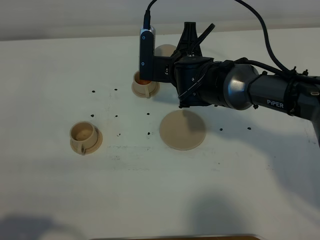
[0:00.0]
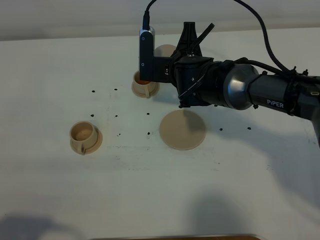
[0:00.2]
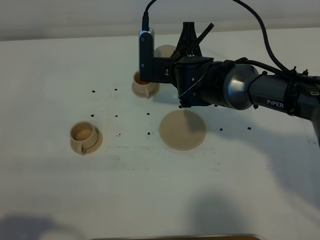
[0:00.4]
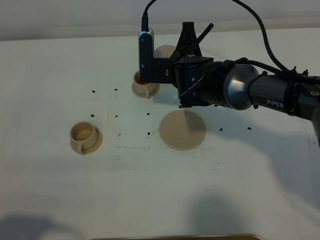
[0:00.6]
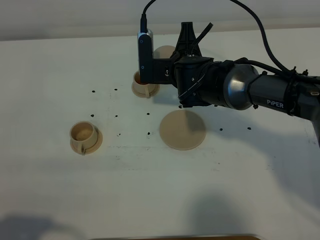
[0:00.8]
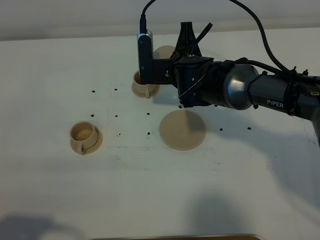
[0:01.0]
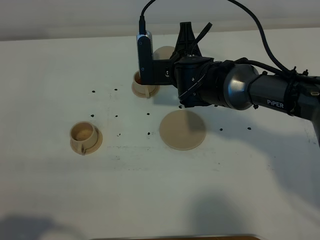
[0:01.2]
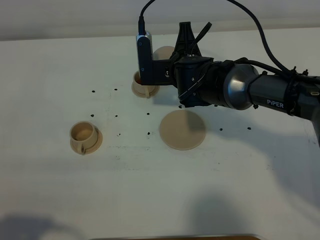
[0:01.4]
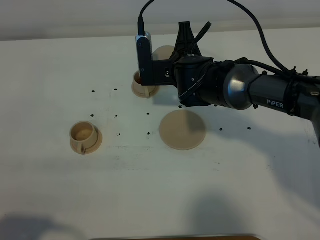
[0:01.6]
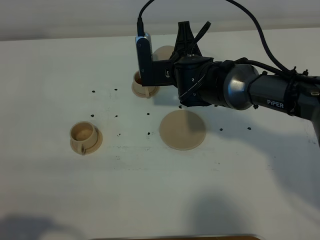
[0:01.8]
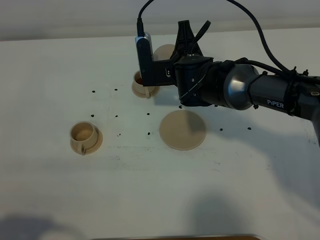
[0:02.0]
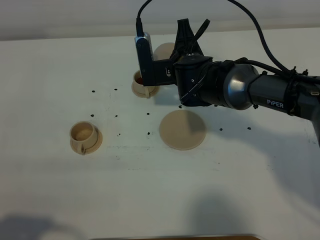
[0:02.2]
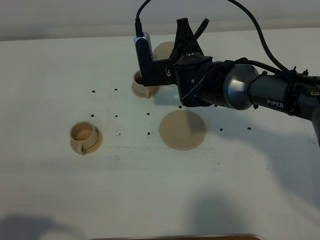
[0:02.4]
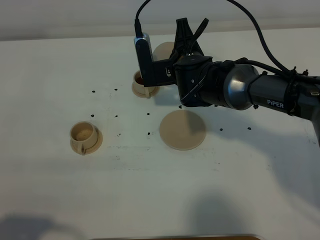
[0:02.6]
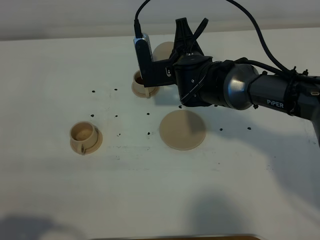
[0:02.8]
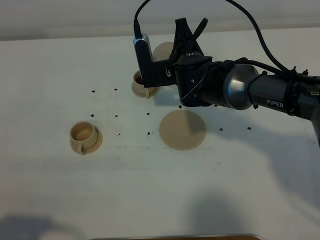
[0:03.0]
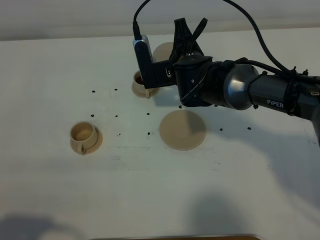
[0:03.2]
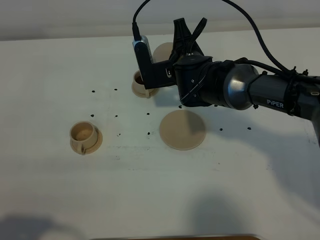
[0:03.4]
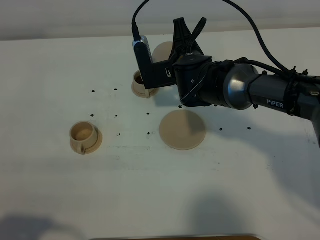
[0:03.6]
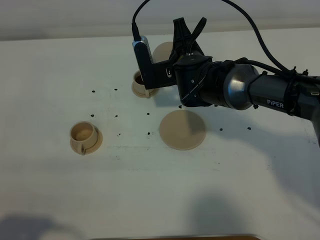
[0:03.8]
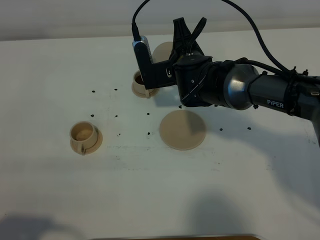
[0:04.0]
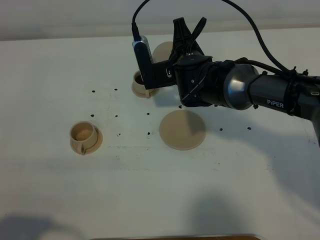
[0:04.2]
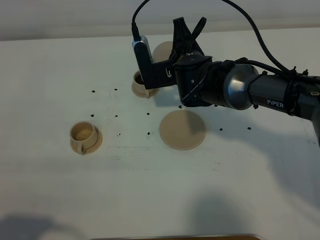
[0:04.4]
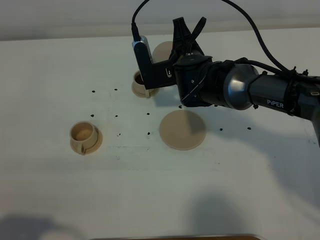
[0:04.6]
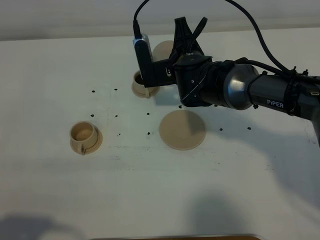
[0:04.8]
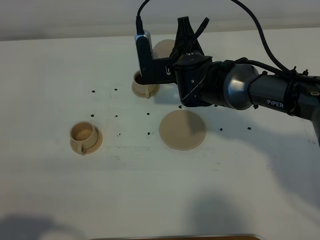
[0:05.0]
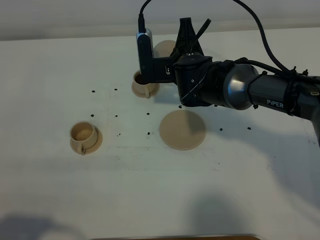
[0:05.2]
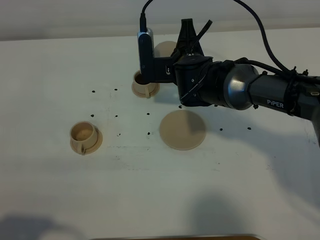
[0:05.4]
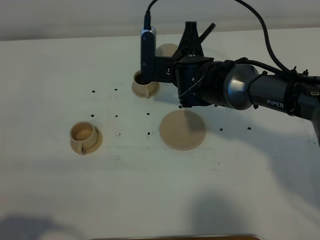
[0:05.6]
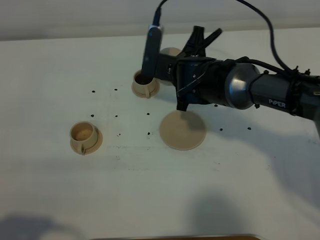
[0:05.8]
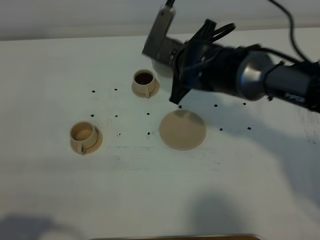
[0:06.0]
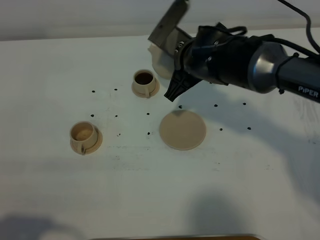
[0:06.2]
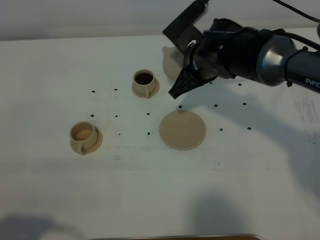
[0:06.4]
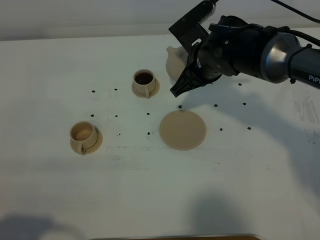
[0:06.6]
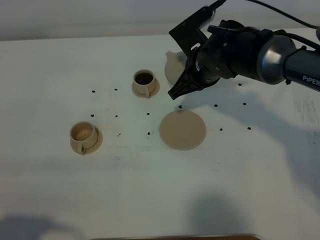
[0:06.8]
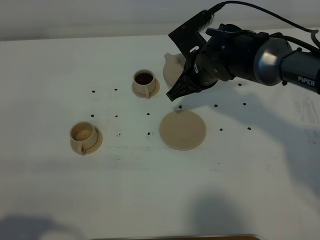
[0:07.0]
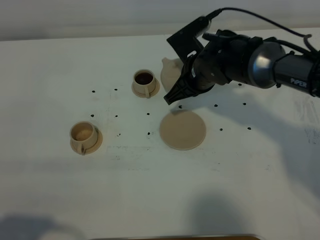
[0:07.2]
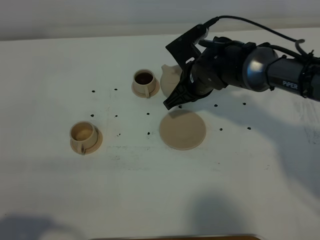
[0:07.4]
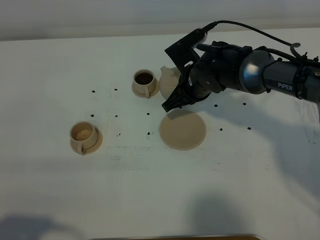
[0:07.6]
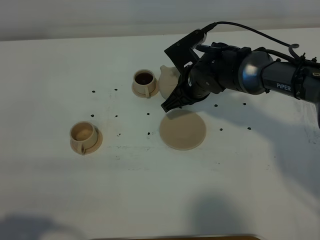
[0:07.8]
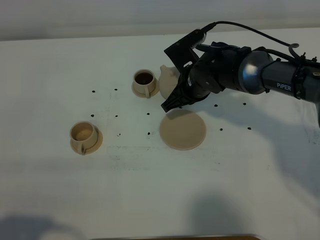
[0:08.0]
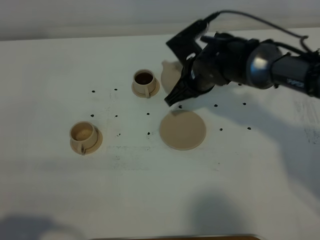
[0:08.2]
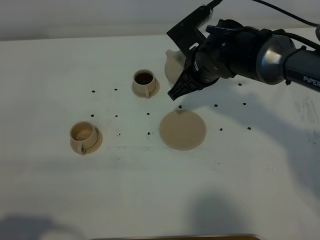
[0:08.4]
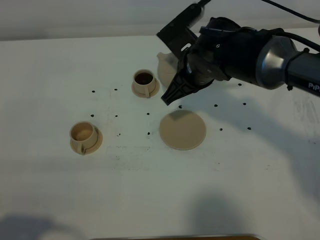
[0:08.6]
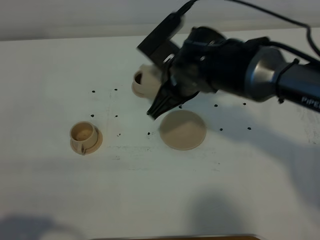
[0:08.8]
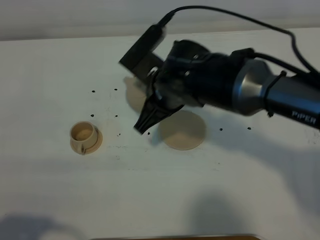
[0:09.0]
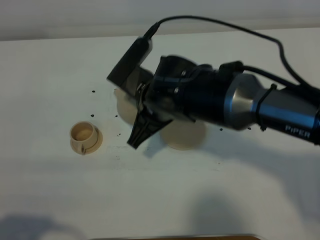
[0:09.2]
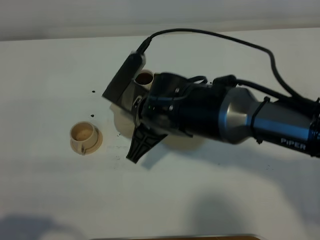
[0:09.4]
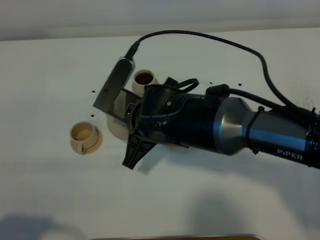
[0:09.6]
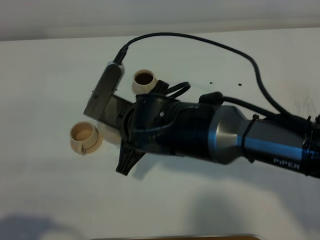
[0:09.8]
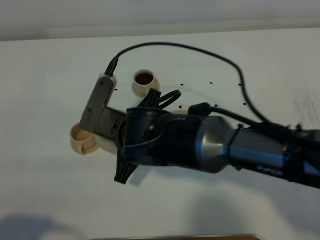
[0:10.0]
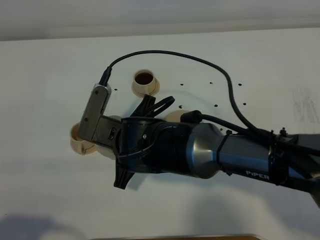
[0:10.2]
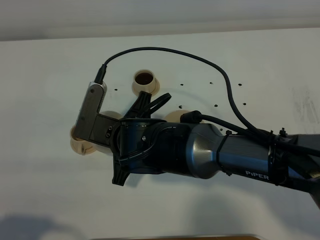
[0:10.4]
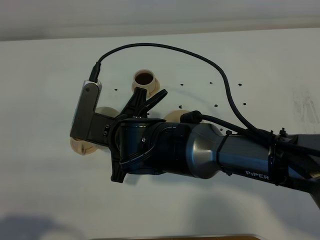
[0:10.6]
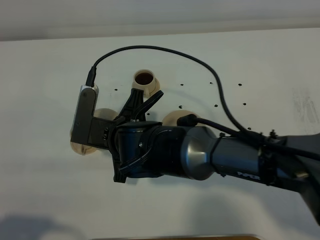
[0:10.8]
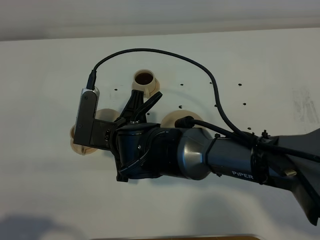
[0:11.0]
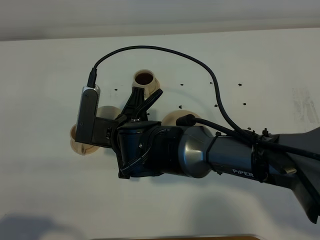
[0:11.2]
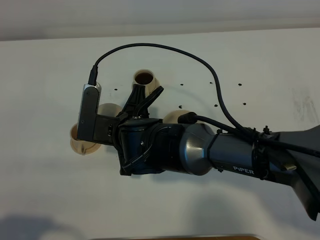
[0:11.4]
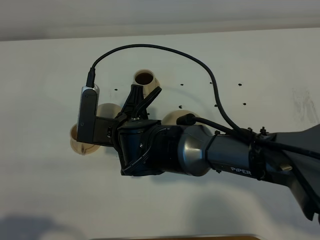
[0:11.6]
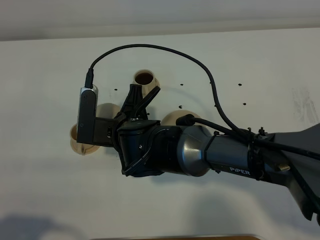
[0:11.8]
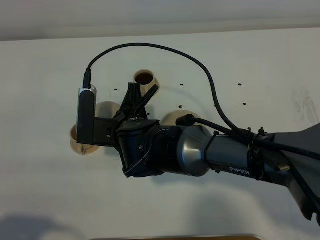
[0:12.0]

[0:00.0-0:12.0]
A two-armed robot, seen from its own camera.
Task of the whole recording: grasp the brown teapot and pour the tea into the two brown teacups one by one, put the brown teapot back in its original place.
0:00.0 to 0:03.0: The grippers stay close to where they were, moving slightly.
0:03.0 to 0:04.4: Both grippers stay about where they are.
0:06.0 to 0:07.6: The right gripper heads downward, covering some 5 cm.
0:07.6 to 0:09.0: The right gripper shifts about 15 cm backward, upward and to the left.
0:09.0 to 0:10.4: The right gripper is displaced to the left and backward by roughly 10 cm.
0:10.4 to 0:12.0: The grippers move only a little.

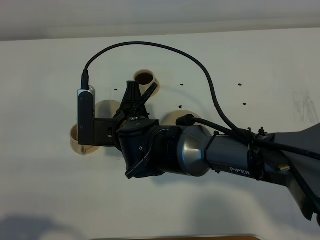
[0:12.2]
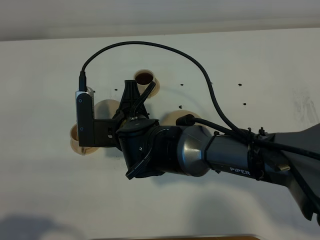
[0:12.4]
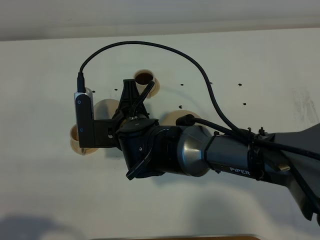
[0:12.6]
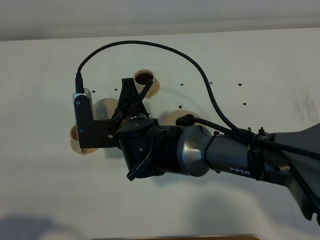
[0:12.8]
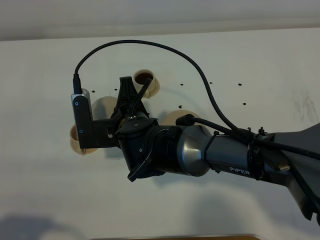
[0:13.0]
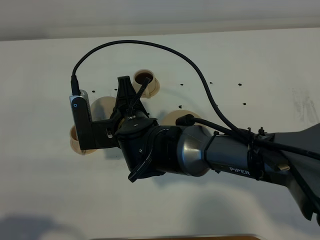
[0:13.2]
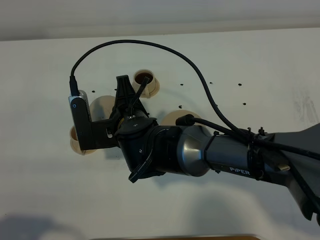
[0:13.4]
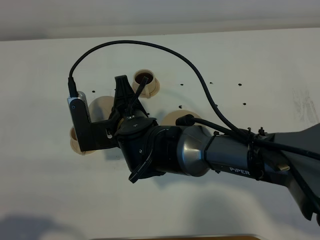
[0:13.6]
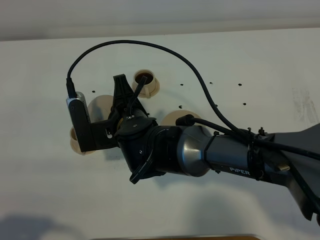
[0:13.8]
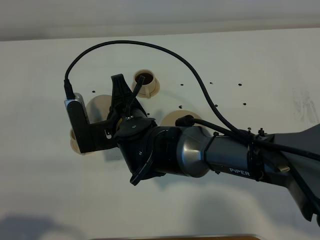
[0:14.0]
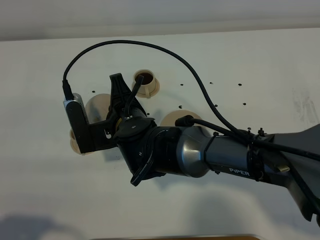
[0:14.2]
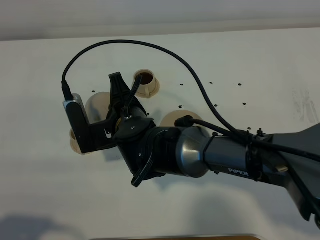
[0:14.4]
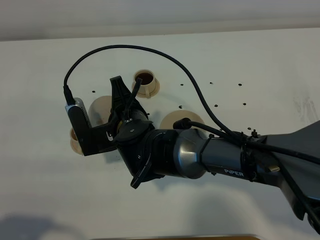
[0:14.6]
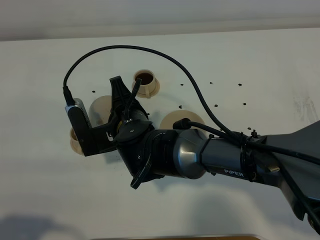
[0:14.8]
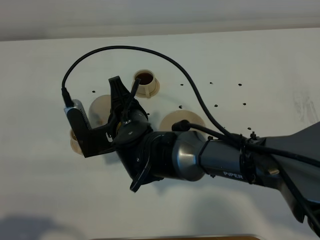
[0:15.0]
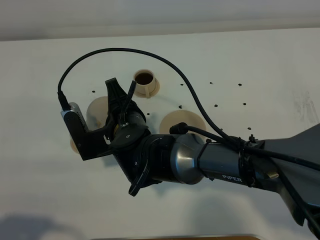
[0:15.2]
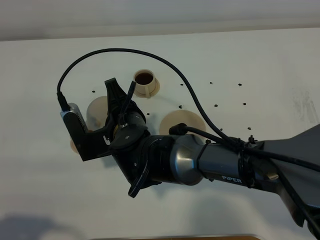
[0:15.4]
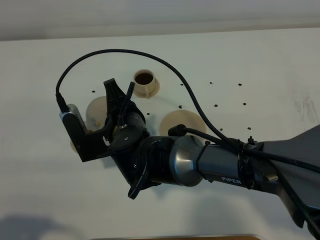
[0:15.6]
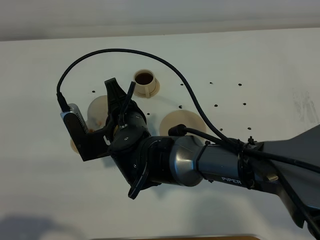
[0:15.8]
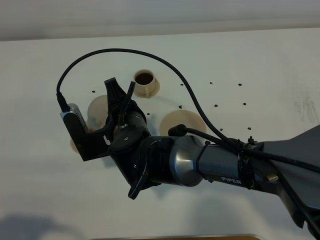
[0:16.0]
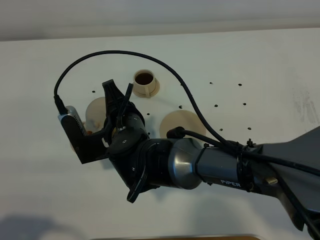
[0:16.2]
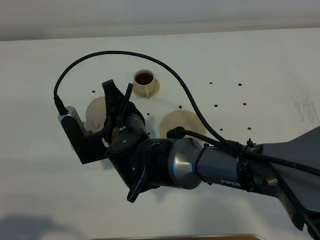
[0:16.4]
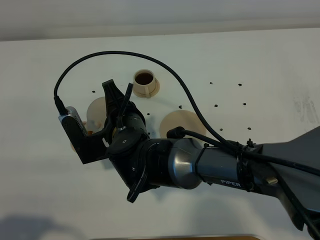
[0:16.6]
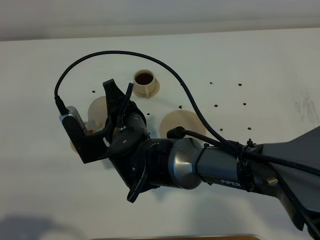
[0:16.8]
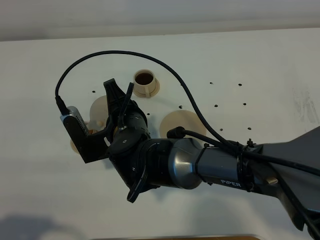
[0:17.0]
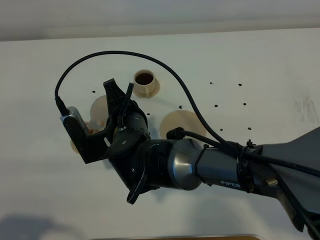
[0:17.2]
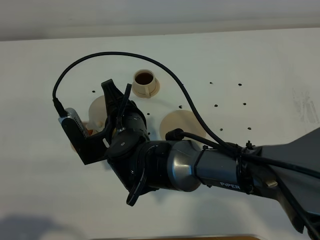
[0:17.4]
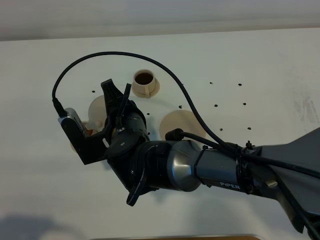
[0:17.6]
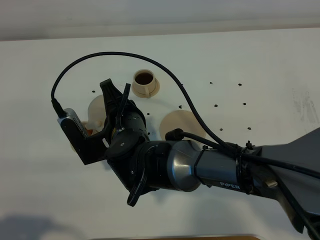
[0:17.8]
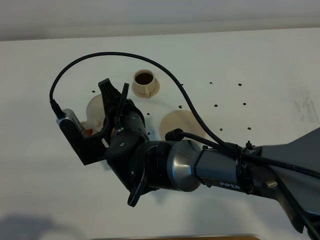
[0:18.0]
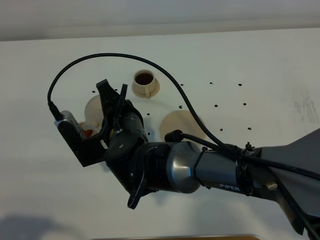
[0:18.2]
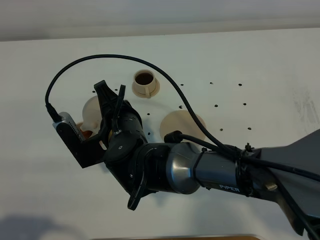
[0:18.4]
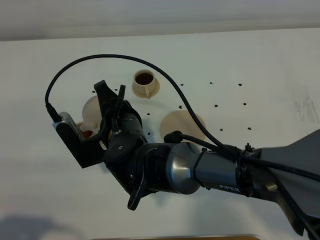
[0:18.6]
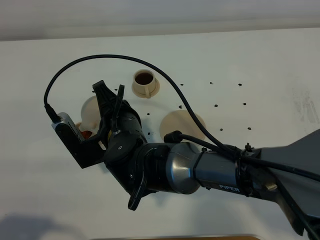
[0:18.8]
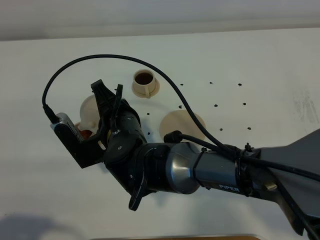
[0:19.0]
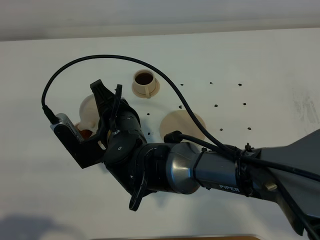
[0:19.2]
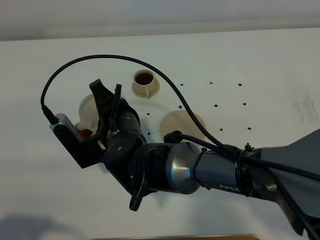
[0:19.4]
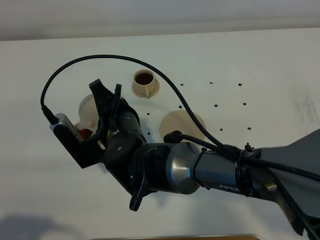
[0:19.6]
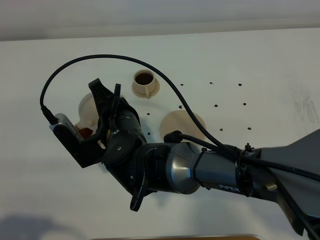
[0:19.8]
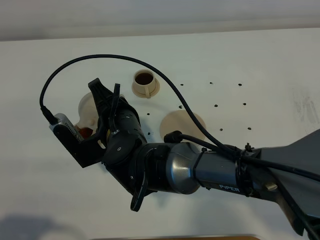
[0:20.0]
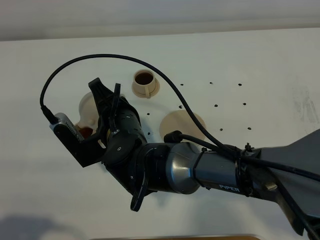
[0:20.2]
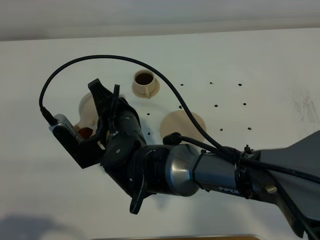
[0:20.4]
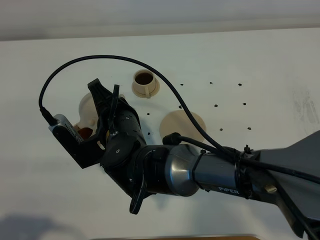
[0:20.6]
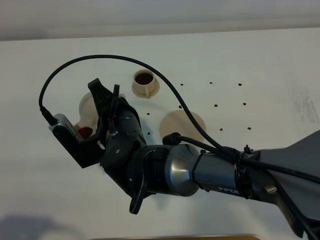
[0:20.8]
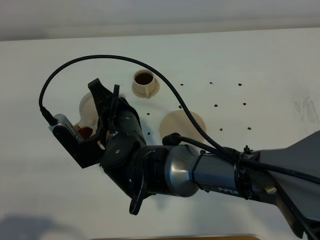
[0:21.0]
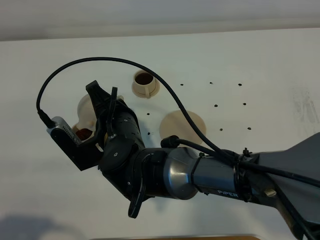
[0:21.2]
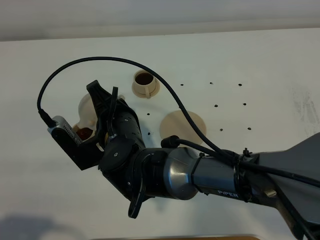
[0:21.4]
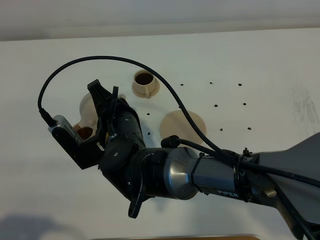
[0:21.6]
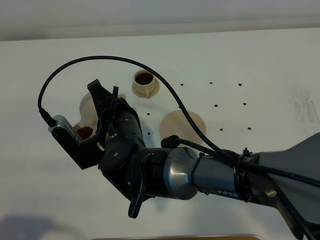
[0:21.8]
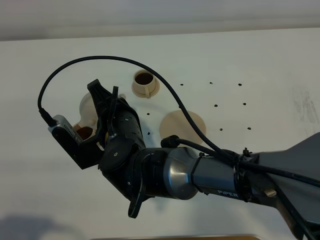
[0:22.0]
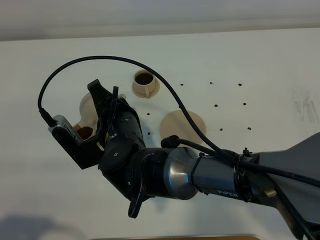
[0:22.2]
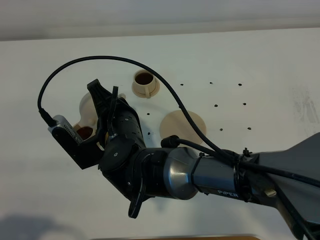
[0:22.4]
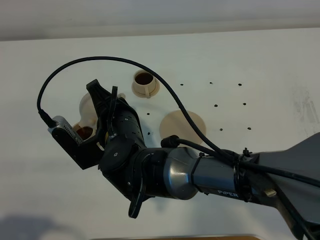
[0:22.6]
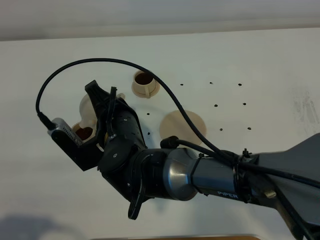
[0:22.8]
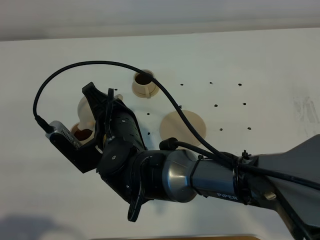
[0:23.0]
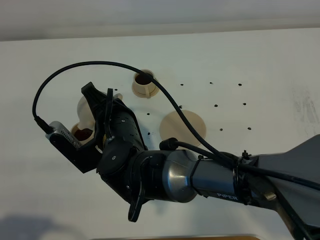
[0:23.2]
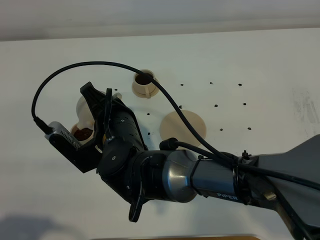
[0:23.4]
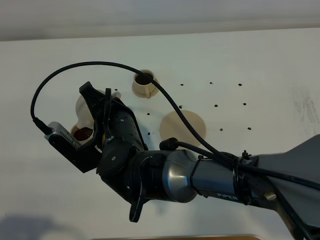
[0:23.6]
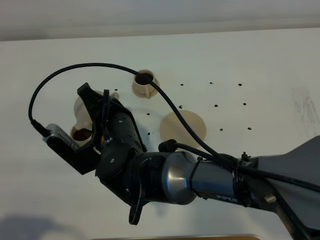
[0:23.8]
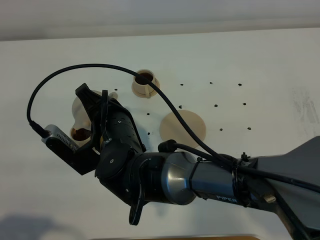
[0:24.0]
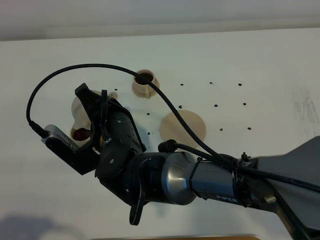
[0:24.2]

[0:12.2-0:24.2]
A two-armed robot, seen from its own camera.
Task of the whole recording: grasp the brown teapot and pour the tea into the two brown teacups one by one, put the brown teapot back in its original place.
0:12.2 to 0:13.8: There are only small adjustments of the grippers.
0:13.8 to 0:15.2: The grippers move only a little.
0:15.2 to 0:16.6: Both grippers stay about where they are.
0:16.6 to 0:18.2: The grippers move only a little.
0:18.2 to 0:19.8: The two grippers keep their place.
0:19.8 to 0:22.6: Neither gripper changes place.
0:22.6 to 0:24.2: The grippers make only small movements.
